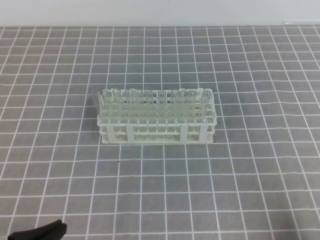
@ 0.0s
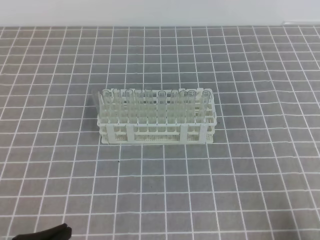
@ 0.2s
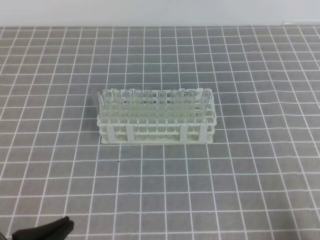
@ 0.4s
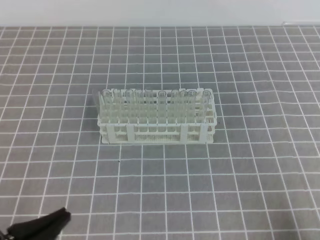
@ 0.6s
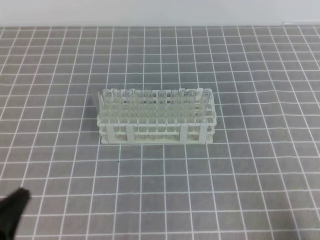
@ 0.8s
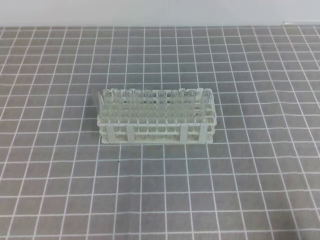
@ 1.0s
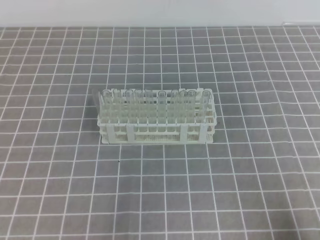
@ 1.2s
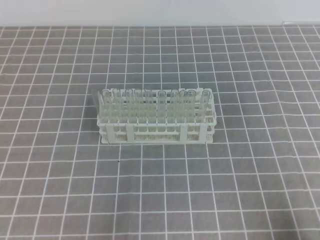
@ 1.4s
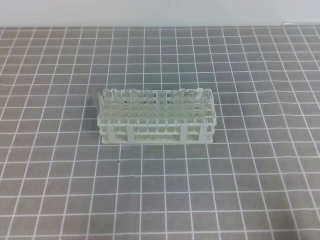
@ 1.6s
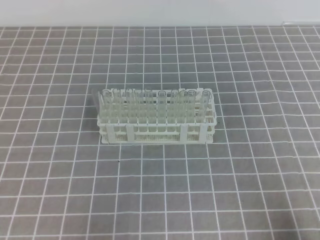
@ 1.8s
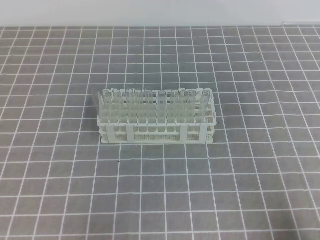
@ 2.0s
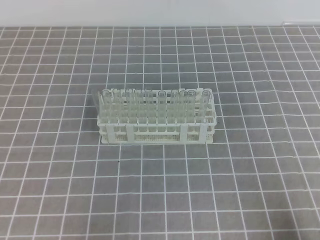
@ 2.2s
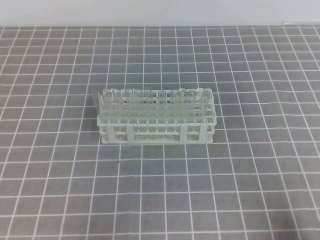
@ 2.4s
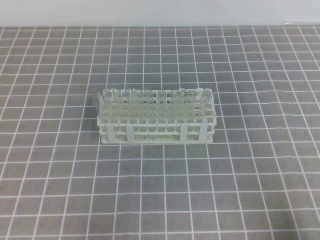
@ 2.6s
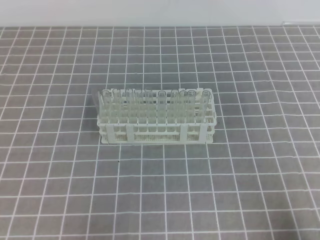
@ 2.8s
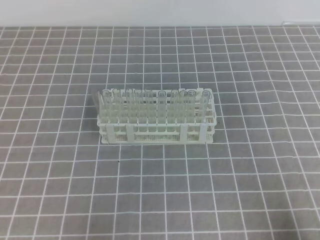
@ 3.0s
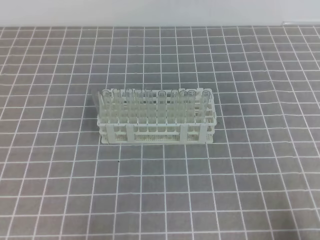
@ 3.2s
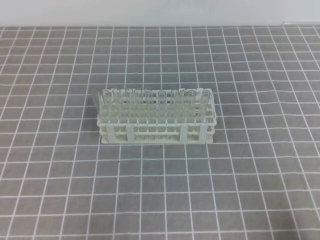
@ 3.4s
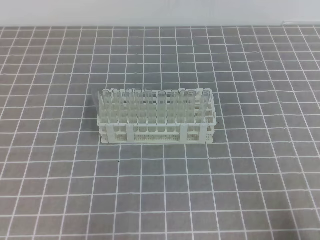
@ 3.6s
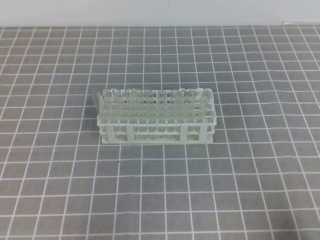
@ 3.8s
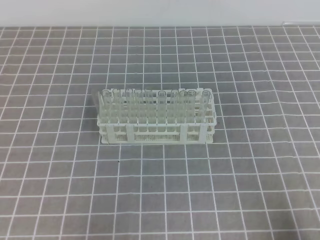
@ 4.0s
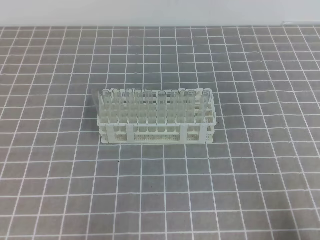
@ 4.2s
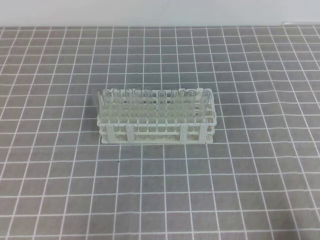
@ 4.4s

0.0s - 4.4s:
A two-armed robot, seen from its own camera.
0.0s - 1.4s: The left gripper ends up some 5 cm from where it was.
3.0s - 4.4s: Neither gripper changes place.

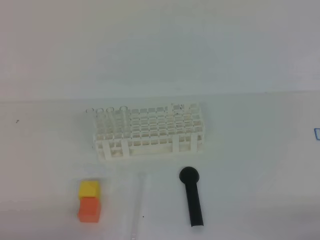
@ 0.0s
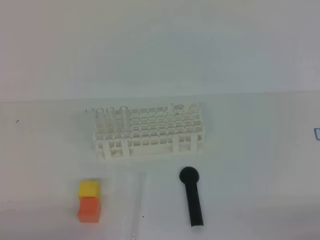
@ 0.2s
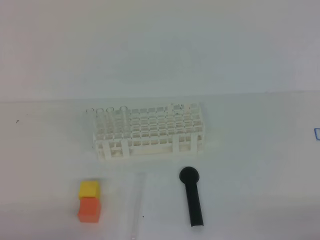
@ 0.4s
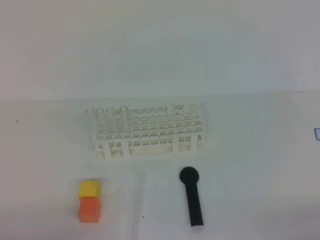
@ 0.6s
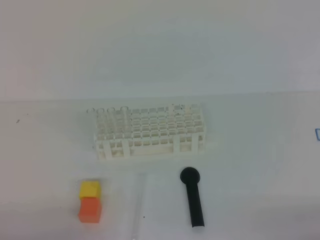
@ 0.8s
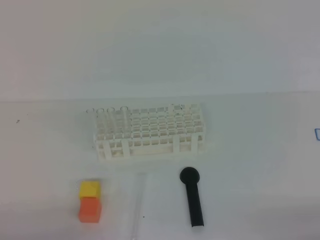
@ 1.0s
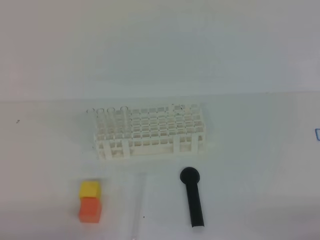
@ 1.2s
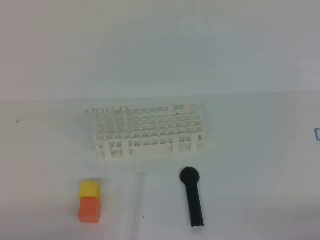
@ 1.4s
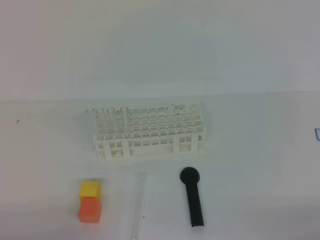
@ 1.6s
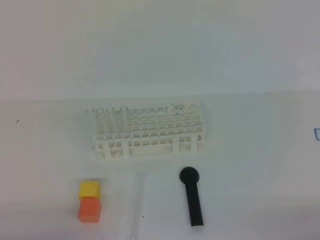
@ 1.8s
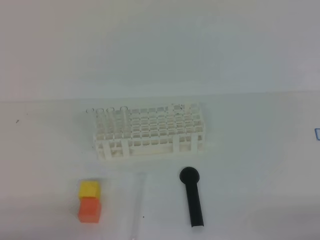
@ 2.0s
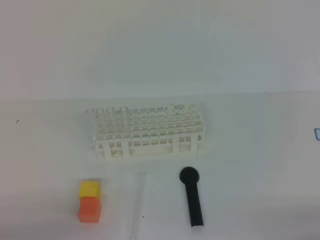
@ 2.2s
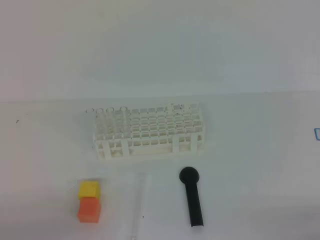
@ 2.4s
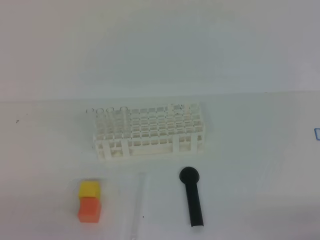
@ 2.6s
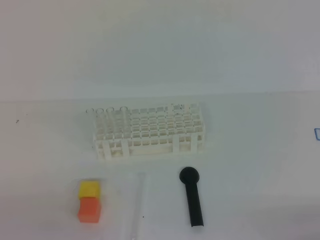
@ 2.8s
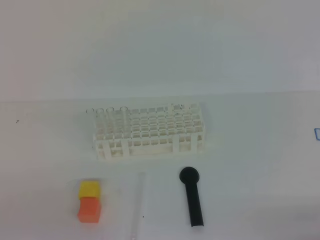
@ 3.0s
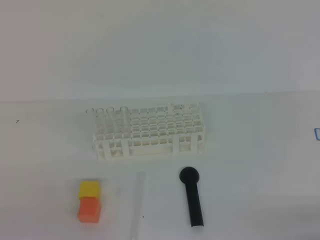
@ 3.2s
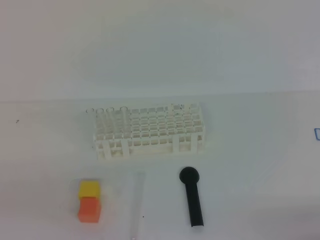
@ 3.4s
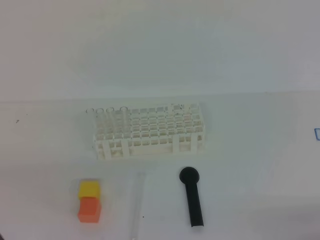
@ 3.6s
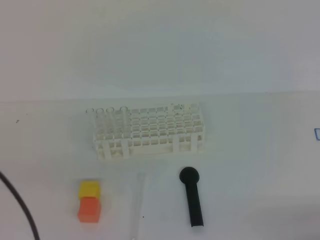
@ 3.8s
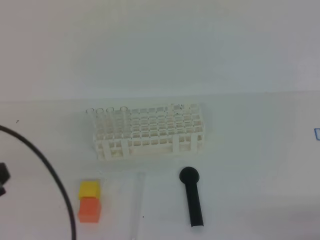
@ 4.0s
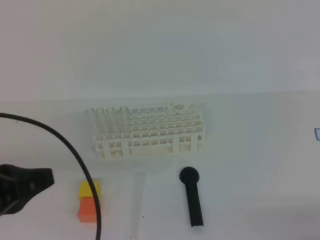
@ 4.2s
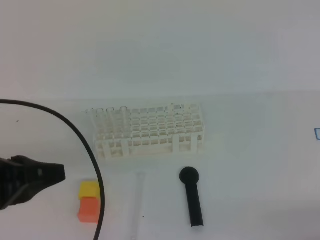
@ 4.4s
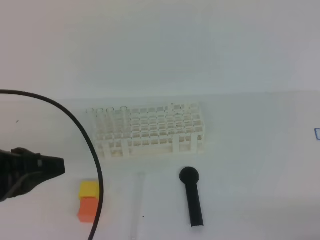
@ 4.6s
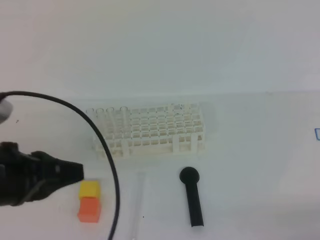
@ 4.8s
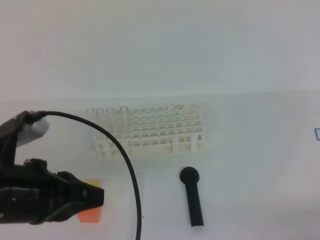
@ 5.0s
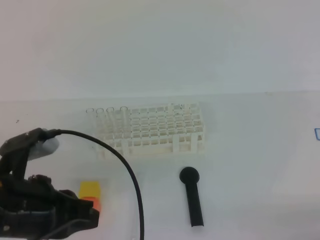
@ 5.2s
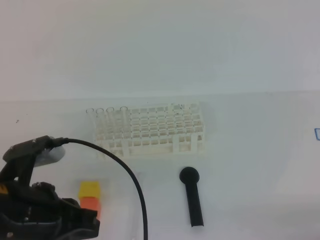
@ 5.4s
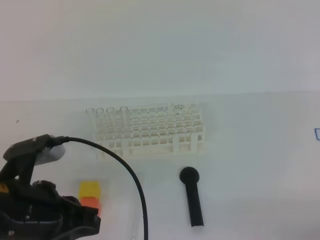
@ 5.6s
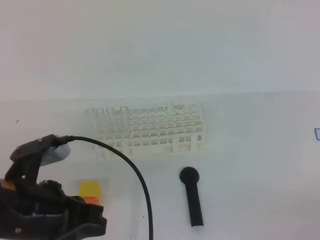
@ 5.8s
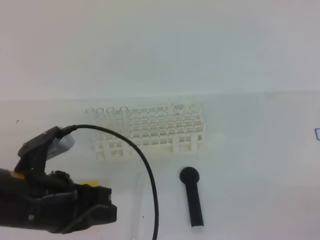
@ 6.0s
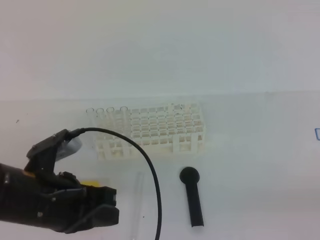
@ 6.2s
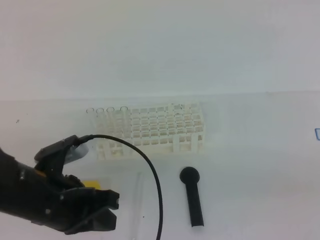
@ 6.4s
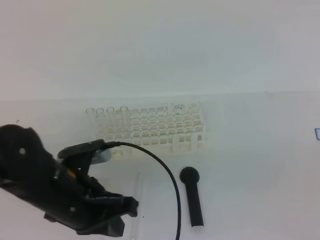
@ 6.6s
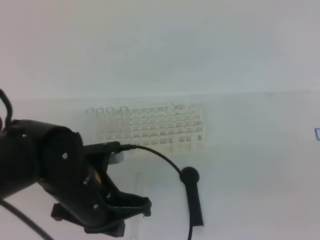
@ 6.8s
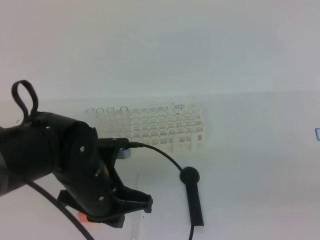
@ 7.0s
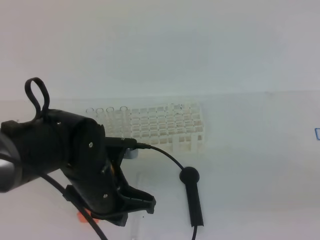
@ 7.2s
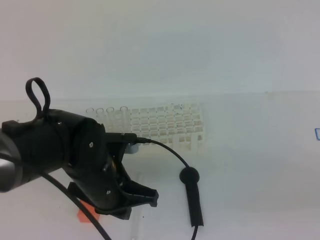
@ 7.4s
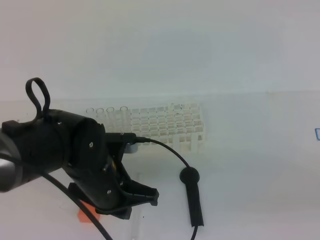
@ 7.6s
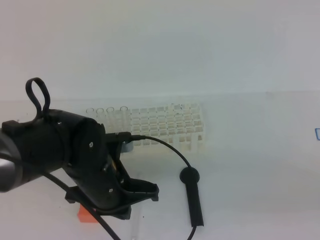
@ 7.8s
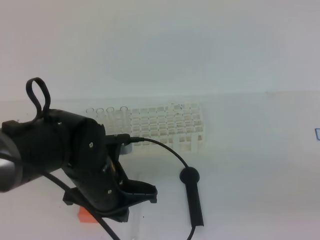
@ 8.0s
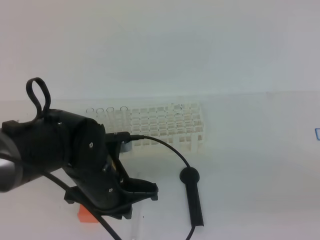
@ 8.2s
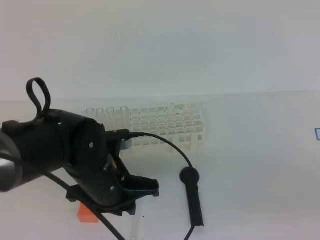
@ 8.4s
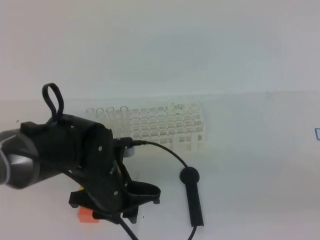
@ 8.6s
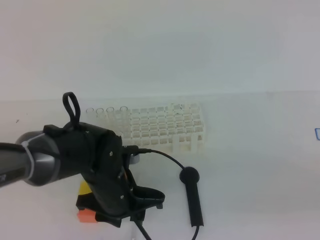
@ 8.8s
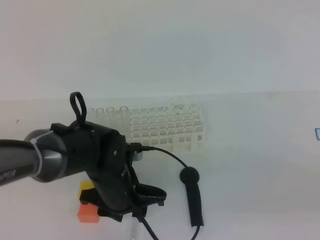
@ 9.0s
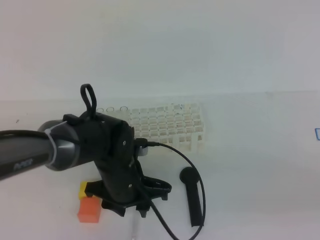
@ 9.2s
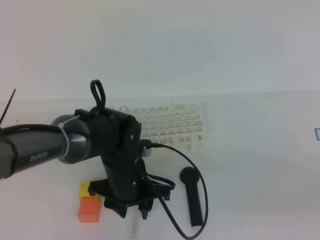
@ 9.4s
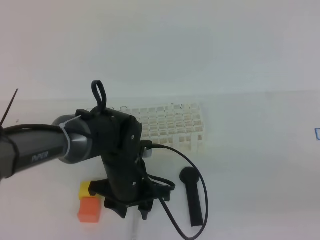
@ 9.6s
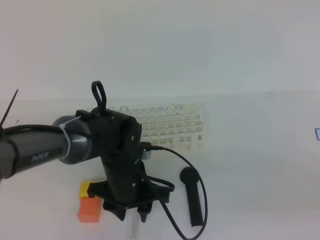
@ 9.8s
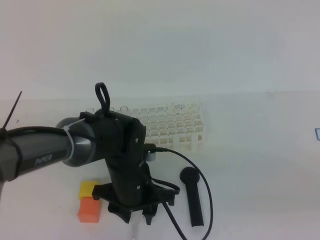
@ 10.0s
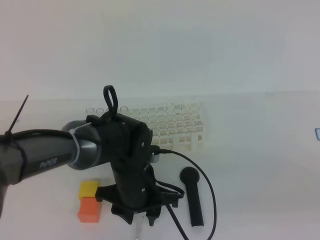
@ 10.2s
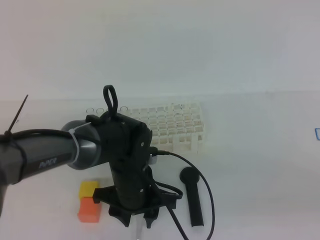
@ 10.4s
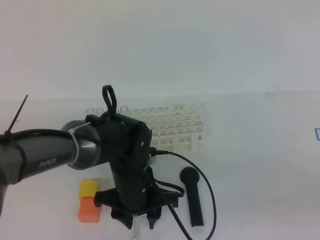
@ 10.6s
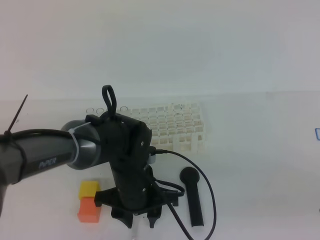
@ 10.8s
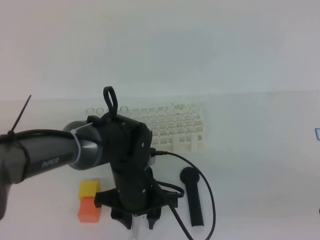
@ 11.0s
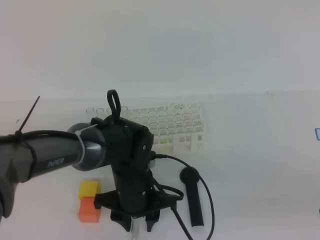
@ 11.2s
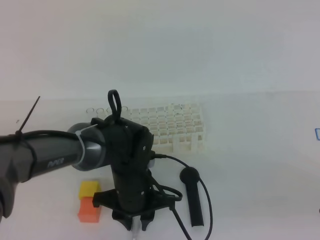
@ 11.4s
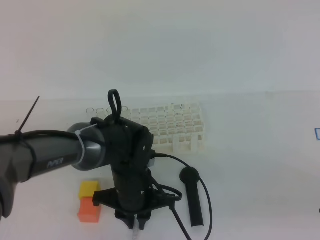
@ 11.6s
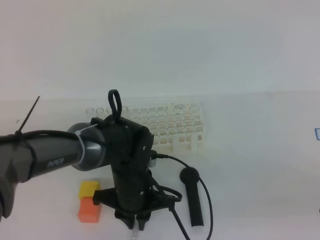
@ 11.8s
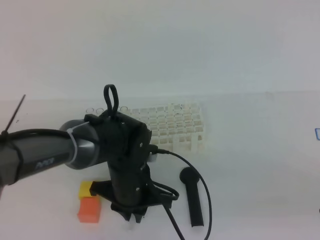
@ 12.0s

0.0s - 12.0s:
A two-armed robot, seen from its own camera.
0.0s - 1.6s: Both grippers stay put.
3.0s - 4.4s: The left gripper is displaced forward, upward and to the right by about 15 cm.
4.4s - 6.0s: The left gripper travels to the right by about 5 cm.
6.0s - 7.6s: The right gripper travels upward and to the left by some 10 cm. The left gripper heads to the right, forward and downward, covering approximately 10 cm.
7.6s - 9.0s: The left gripper moves some 5 cm, and opens its fingers.
9.0s - 10.4s: The grippers stay close to where they were, moving slightly.
10.4s - 12.0s: The left gripper closes.

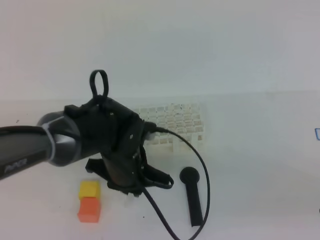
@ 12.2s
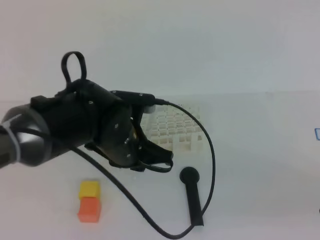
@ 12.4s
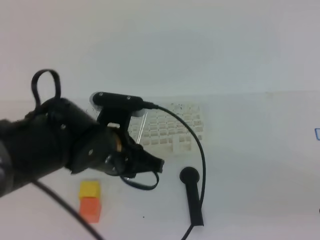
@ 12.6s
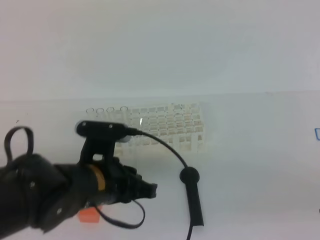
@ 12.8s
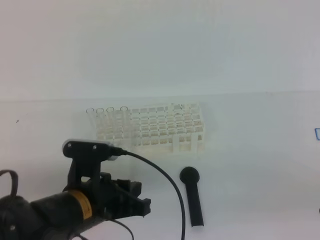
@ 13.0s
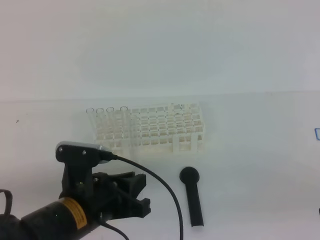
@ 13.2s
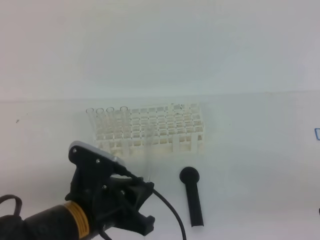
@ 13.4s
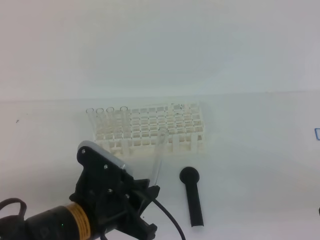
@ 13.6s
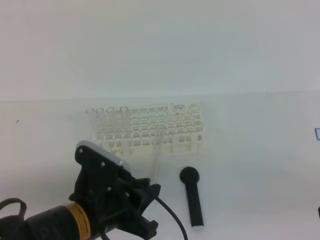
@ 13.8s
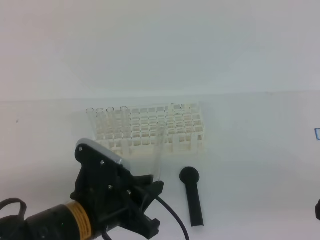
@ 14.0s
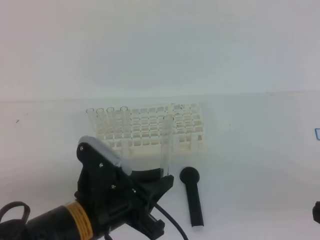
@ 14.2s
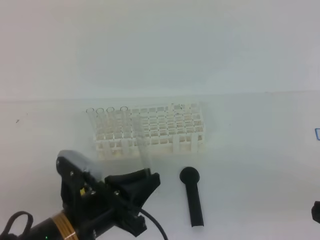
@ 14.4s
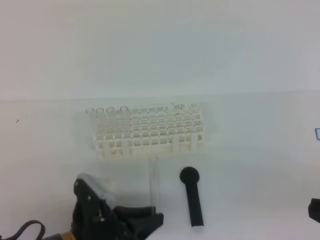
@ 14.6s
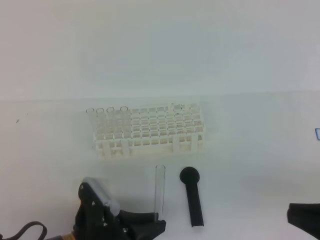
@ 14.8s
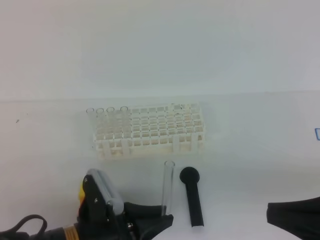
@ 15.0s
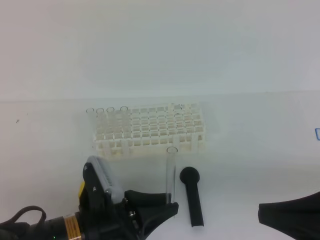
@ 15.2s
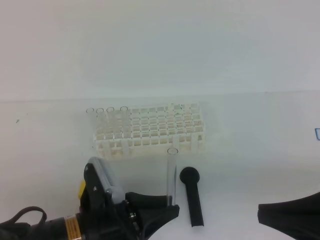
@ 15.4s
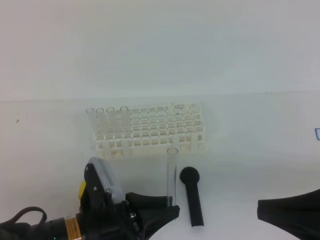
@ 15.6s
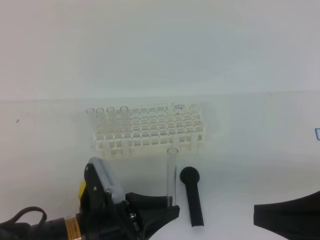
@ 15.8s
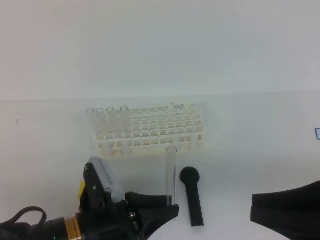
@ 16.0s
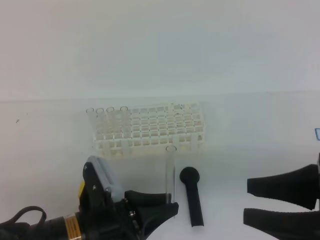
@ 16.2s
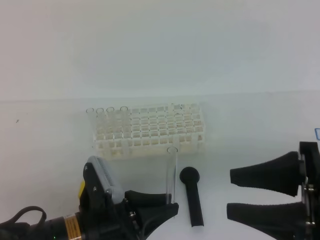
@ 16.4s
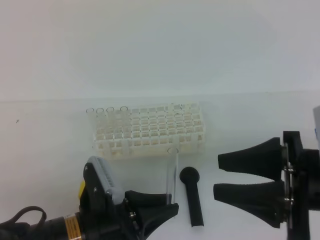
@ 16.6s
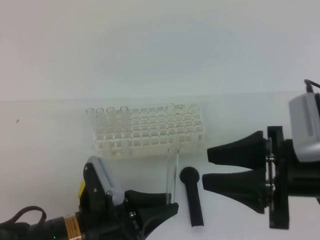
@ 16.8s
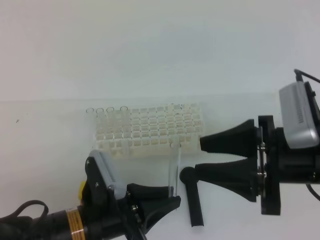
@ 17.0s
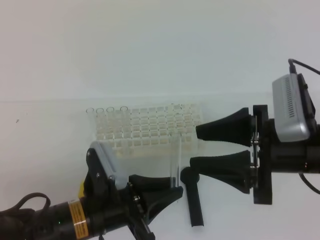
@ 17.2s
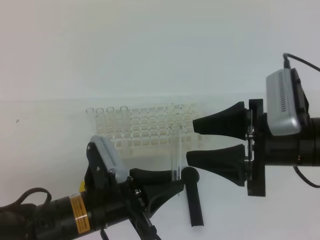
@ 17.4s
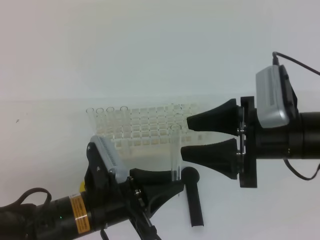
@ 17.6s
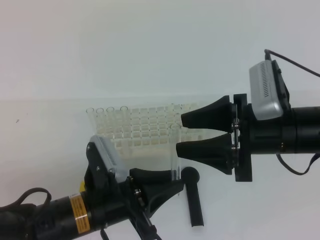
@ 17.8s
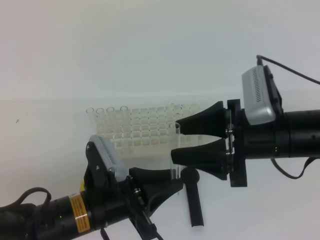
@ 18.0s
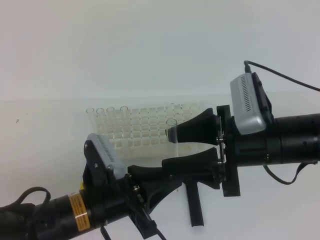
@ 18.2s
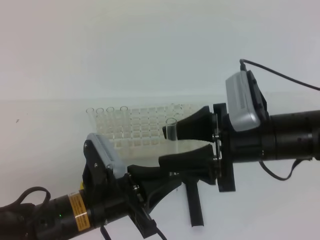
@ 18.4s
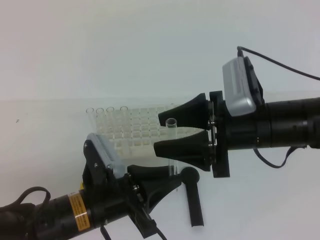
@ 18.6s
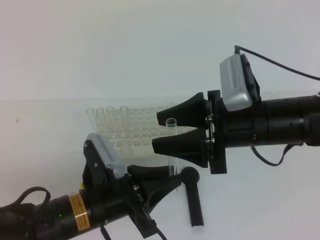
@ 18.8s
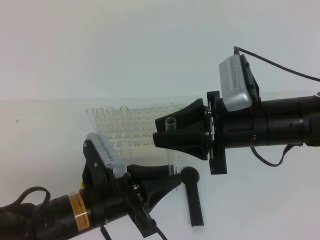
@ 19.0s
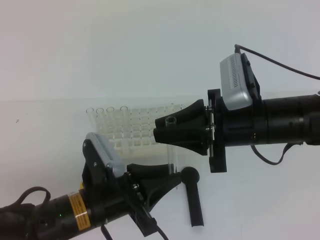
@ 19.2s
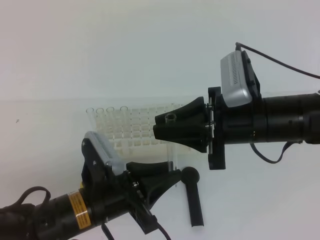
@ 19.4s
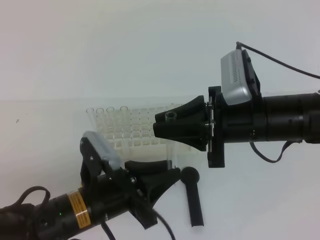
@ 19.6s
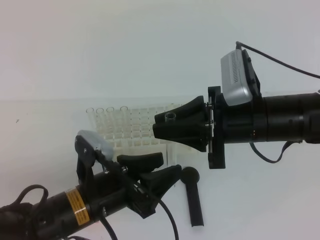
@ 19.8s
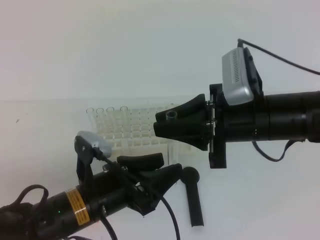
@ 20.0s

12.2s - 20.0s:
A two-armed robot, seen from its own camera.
12.2s - 13.8s: The left gripper is displaced backward by approximately 10 cm.
13.8s - 15.4s: The right gripper shifts by about 5 cm.
15.4s - 16.8s: The right gripper goes roughly 5 cm forward, and opens its fingers.
16.8s - 18.4s: The right gripper is displaced forward and to the left by about 10 cm.
18.4s - 20.0s: The right gripper closes, while the left gripper opens.
